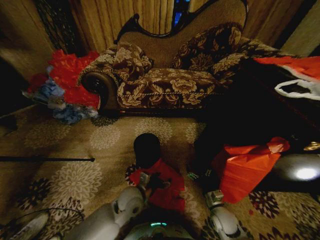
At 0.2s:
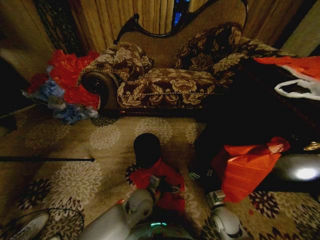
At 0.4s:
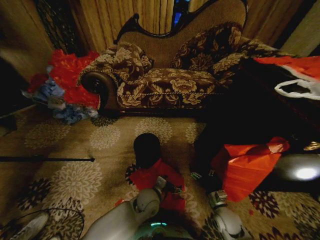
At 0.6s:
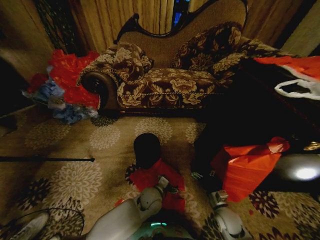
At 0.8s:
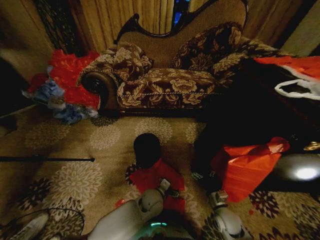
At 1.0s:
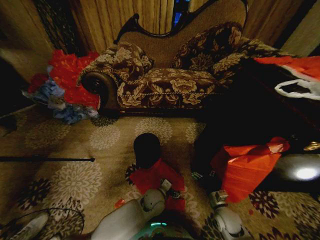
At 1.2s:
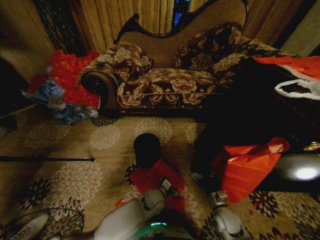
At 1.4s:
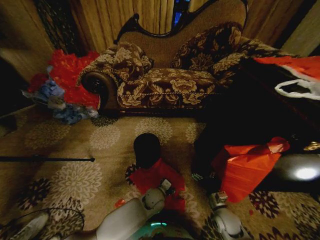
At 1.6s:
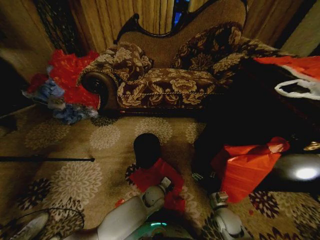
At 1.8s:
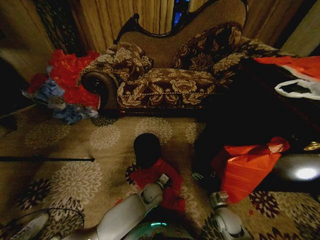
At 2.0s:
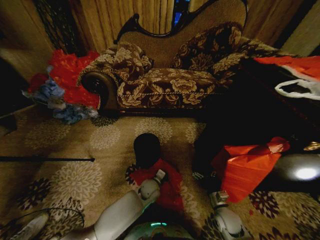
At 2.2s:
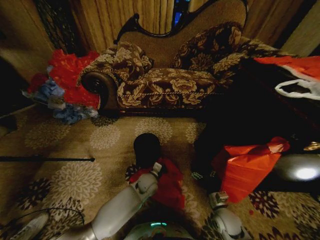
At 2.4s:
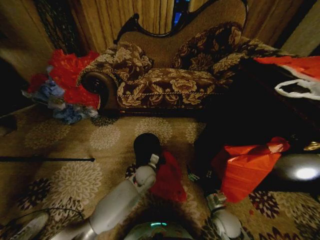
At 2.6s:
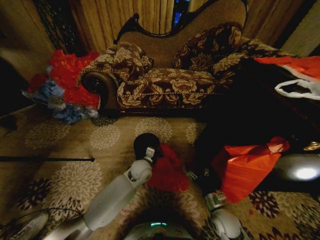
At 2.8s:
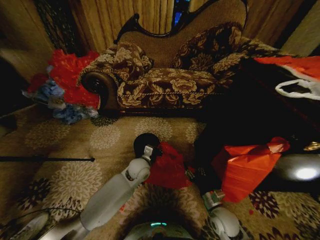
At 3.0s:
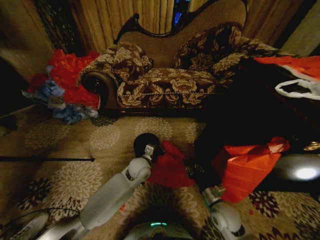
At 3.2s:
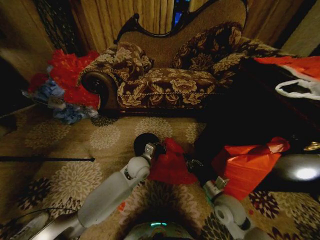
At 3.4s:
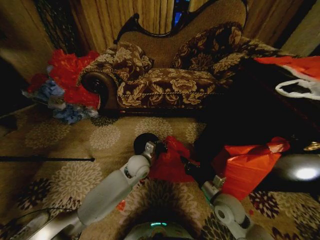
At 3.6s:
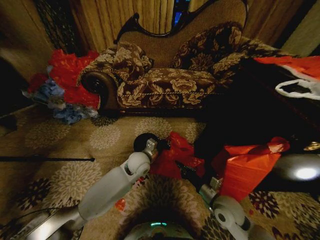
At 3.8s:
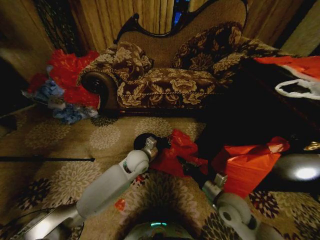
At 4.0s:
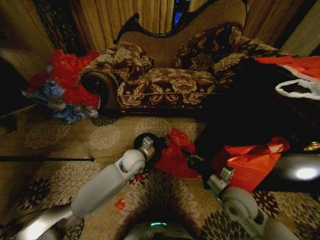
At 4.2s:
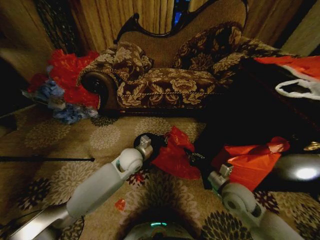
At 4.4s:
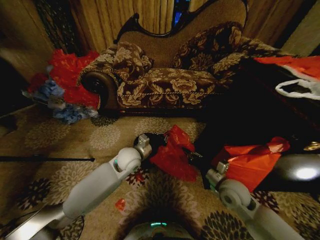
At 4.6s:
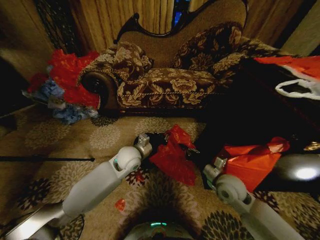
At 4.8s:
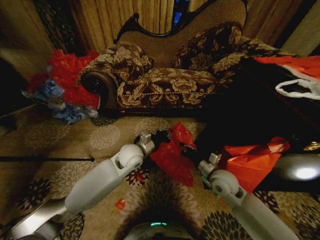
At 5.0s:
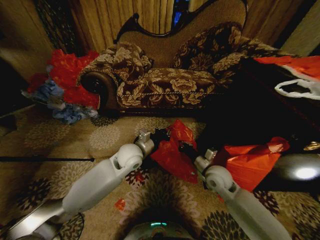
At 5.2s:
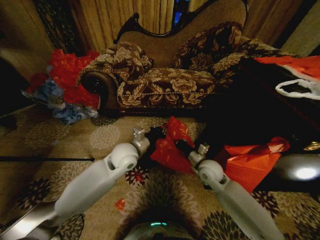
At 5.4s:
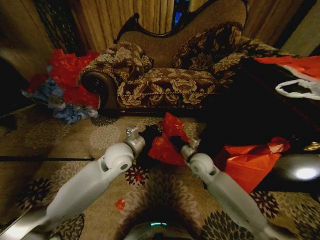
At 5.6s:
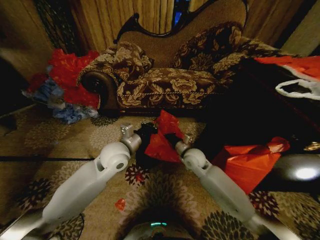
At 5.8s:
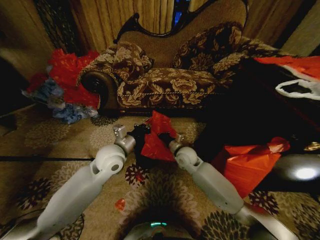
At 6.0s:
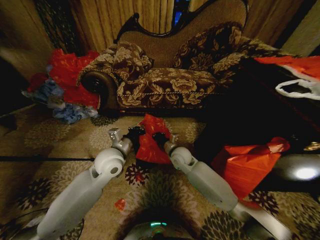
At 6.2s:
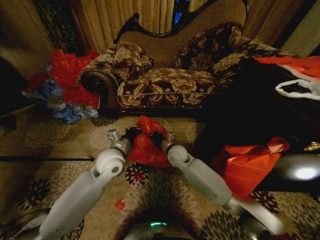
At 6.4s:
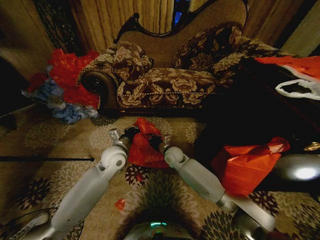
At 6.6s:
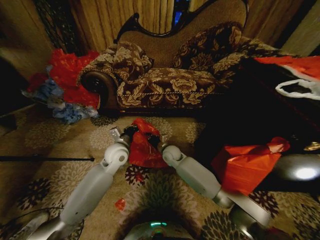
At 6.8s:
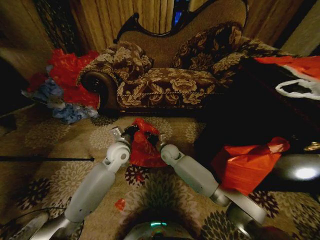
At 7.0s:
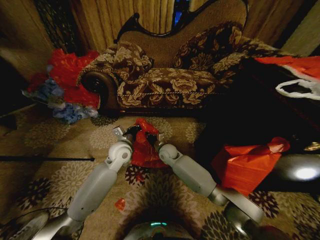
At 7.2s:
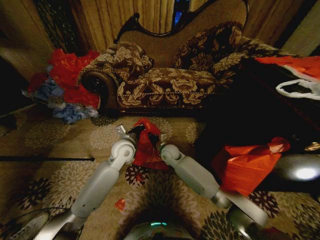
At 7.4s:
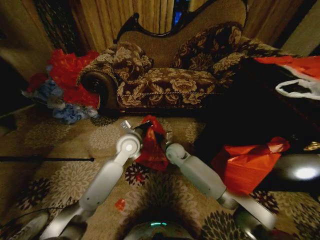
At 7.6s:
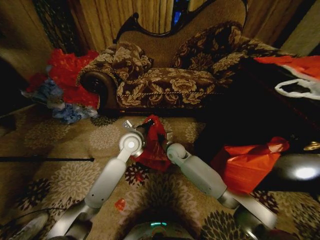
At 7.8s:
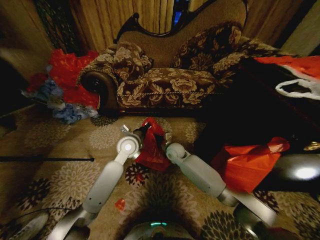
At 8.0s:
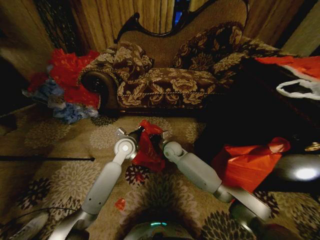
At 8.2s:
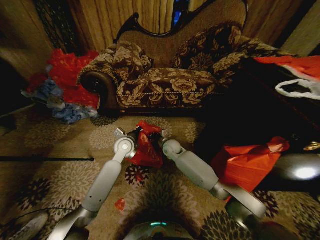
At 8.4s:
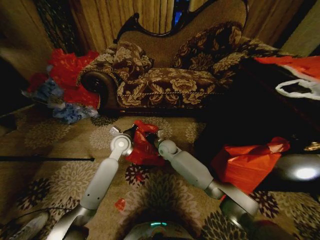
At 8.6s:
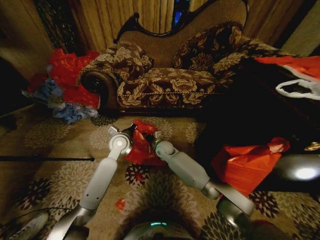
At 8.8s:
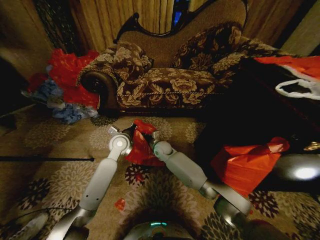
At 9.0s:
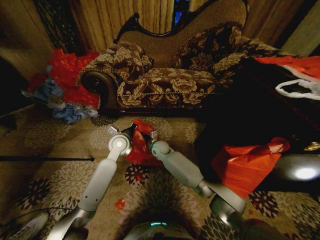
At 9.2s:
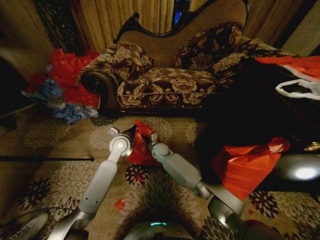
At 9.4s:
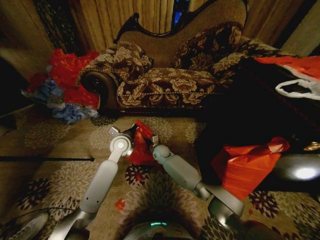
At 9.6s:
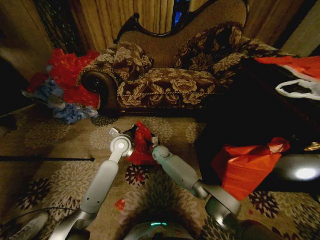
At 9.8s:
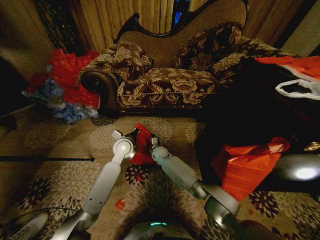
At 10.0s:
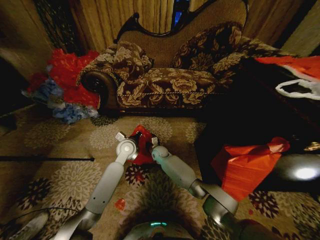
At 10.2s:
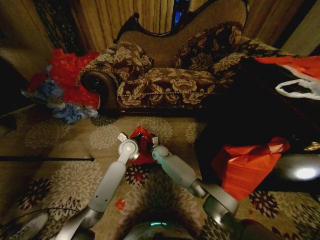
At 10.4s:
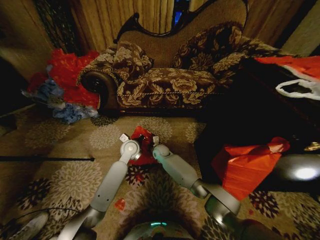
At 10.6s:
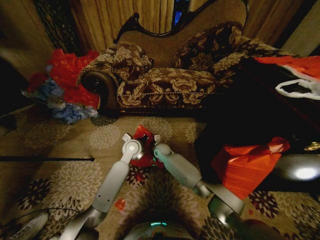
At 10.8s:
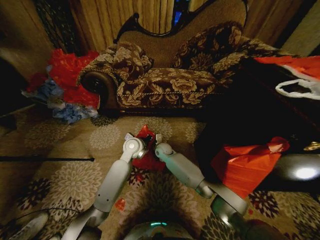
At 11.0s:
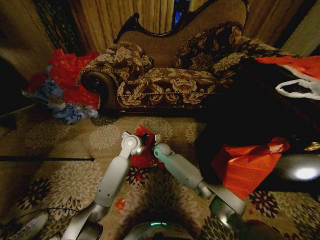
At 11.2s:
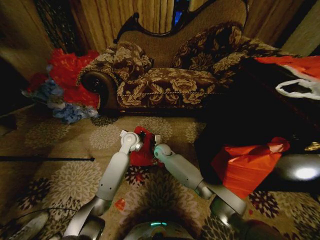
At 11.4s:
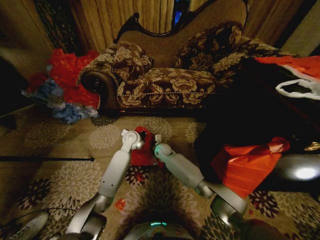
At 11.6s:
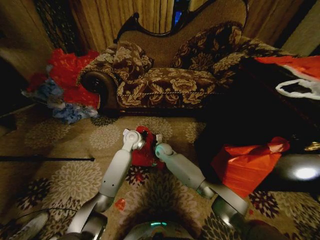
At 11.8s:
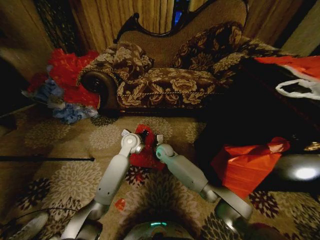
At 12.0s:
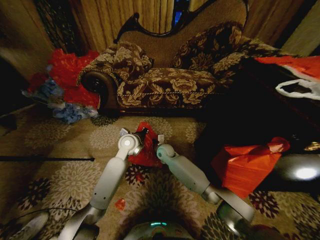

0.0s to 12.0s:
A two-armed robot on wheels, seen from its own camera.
Task of the whole recording: Place a garbage bag over the trash bin.
0.0s to 1.6s: The left gripper heads downward and to the right, covering some 15 cm.
1.6s to 3.0s: The left gripper goes approximately 20 cm upward, to the left and forward, and closes up; the right gripper travels upward by some 5 cm, and closes.
3.0s to 4.4s: The left gripper moves upward, approximately 5 cm; the right gripper shifts about 10 cm upward and forward, and closes its fingers.
4.4s to 6.0s: The left gripper shifts by approximately 10 cm. The right gripper is displaced to the left and forward by about 25 cm.
6.0s to 7.6s: The left gripper heads forward and to the right, covering about 10 cm. Meanwhile the right gripper shifts by approximately 5 cm.
7.6s to 9.0s: The grippers both shift to the left by approximately 5 cm.
9.0s to 10.4s: The right gripper travels downward by roughly 5 cm. Meanwhile the left gripper shifts by roughly 5 cm.
10.4s to 12.0s: The right gripper shifts by approximately 5 cm, and opens its fingers. Meanwhile the left gripper is displaced upward by about 5 cm.

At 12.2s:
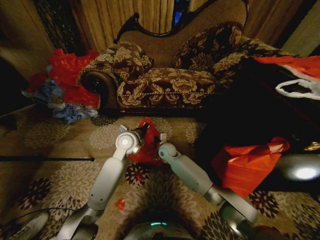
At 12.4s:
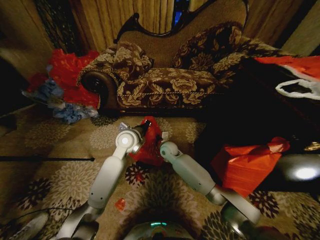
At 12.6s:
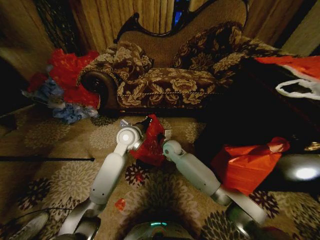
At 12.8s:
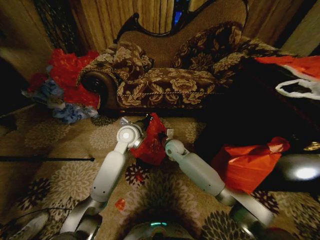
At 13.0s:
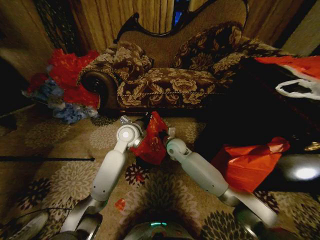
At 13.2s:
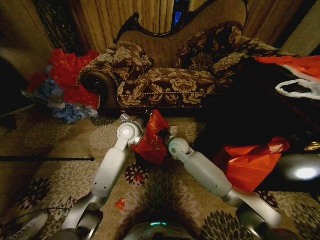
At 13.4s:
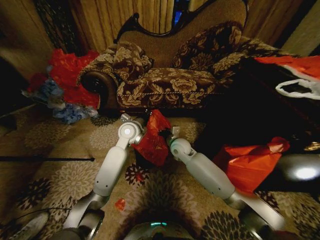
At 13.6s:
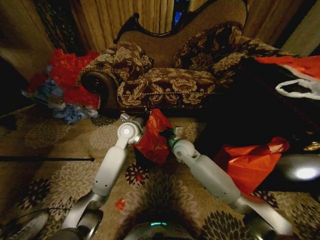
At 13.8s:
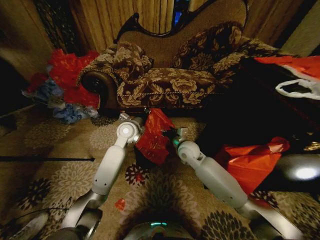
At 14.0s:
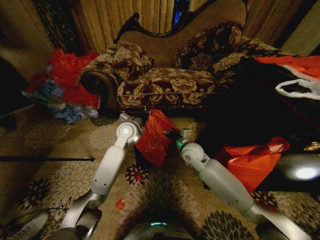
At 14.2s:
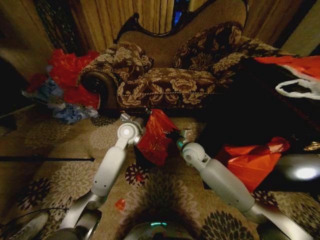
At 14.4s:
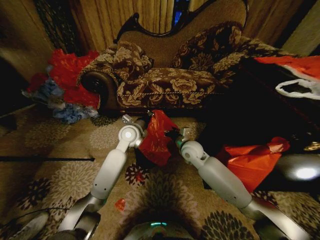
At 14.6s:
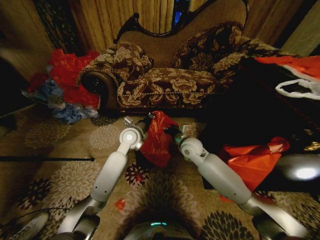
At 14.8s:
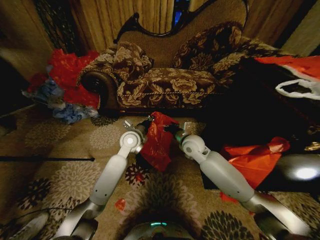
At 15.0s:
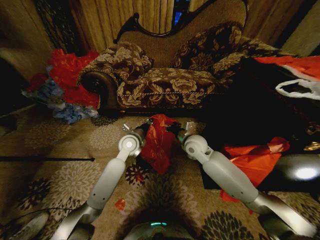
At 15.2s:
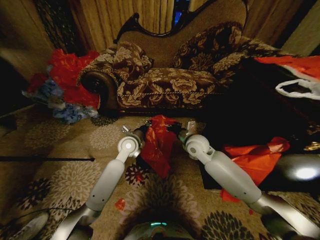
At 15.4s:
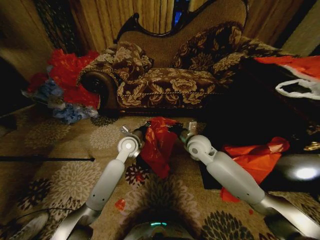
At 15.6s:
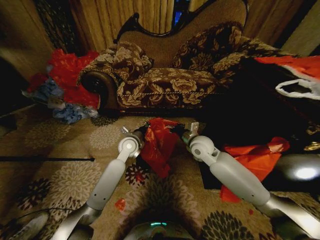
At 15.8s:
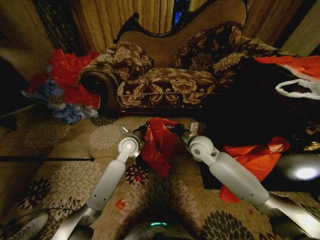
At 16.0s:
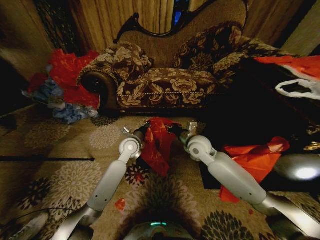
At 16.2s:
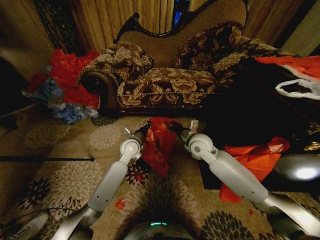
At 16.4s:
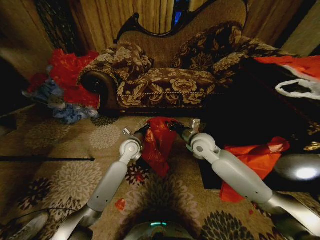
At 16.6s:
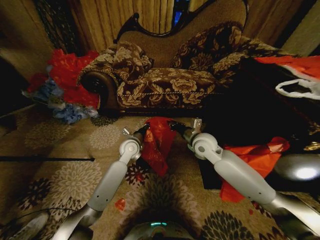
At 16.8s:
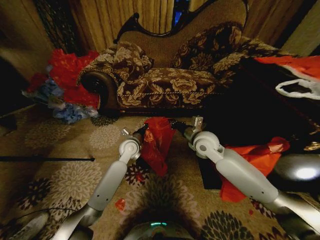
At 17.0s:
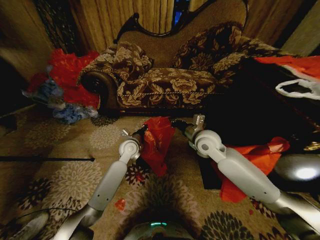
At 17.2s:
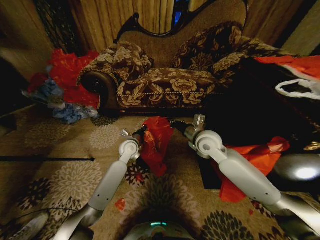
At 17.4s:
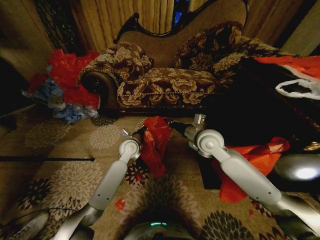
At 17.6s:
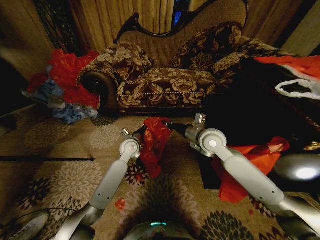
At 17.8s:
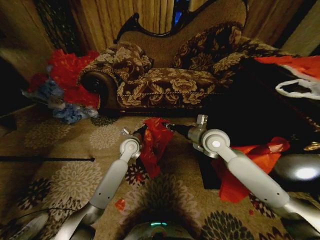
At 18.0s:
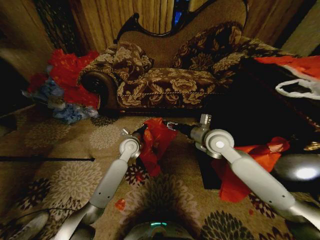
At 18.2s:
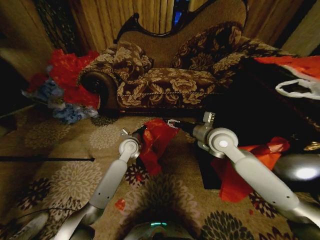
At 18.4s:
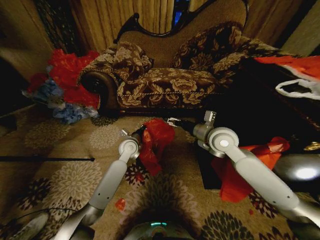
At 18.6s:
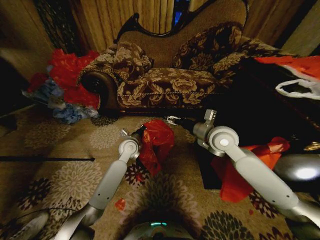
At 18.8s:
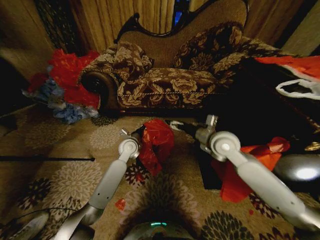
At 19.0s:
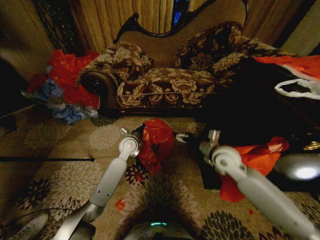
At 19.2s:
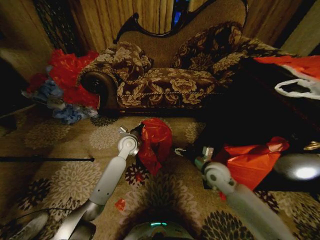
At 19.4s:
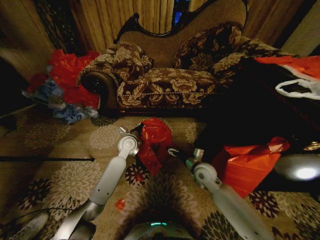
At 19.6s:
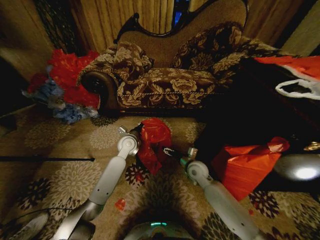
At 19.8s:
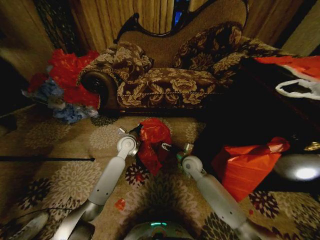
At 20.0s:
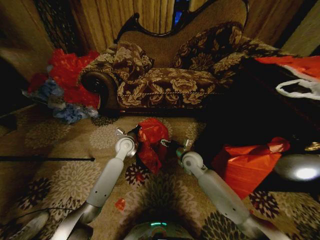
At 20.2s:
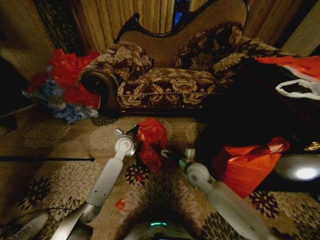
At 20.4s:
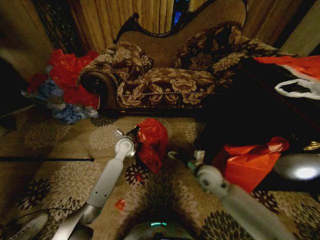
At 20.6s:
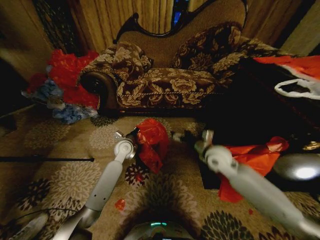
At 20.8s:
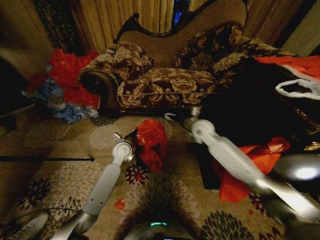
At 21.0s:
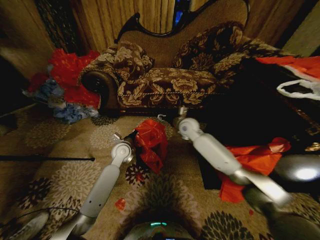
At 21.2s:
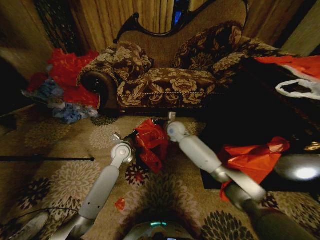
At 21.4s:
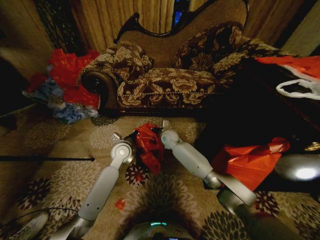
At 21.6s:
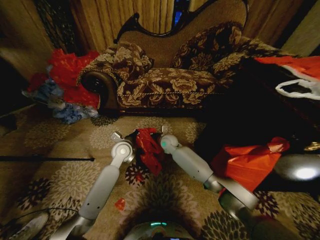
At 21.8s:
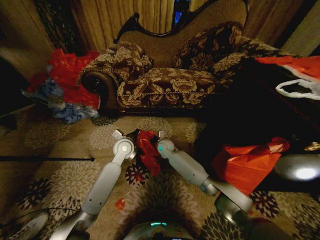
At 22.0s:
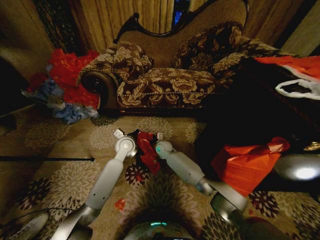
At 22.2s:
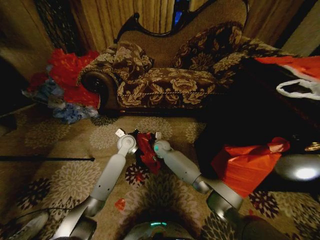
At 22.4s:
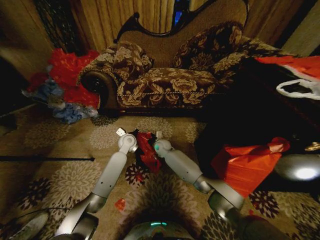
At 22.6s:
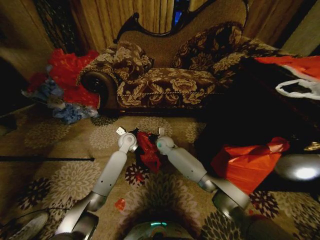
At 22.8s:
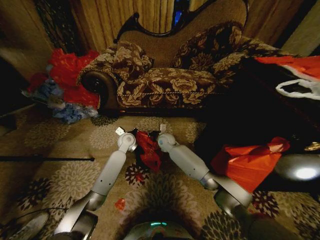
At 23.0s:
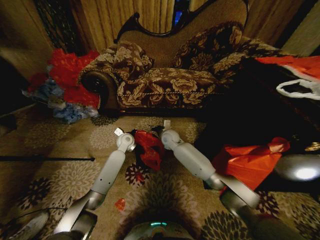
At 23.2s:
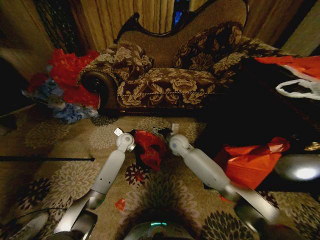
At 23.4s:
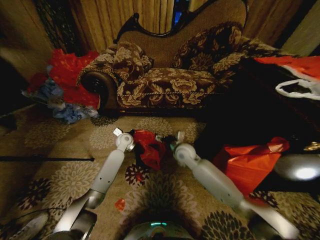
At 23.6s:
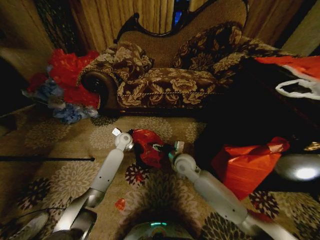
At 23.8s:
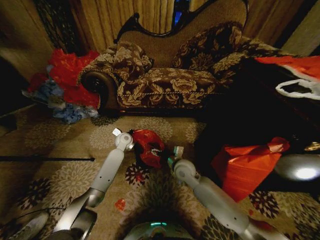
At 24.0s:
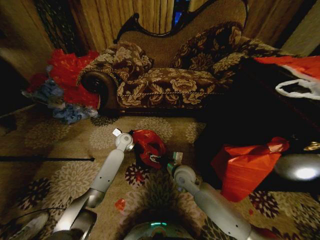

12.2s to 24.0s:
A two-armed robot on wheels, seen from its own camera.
Task of the whole recording: Place a garbage bag over the trash bin.
12.2s to 13.6s: The right gripper moves upward and to the right, about 10 cm, and opens up.
13.6s to 15.2s: The right gripper moves about 5 cm. The left gripper moves downward, approximately 5 cm.
15.2s to 16.6s: The right gripper closes.
16.6s to 18.2s: The right gripper heads upward, covering approximately 5 cm, and opens up.
18.2s to 19.6s: The right gripper shifts about 20 cm downward.
19.6s to 21.0s: The right gripper heads forward and upward, covering about 20 cm.
21.0s to 22.6s: The right gripper heads downward and to the left, covering roughly 15 cm, and closes. The left gripper is displaced forward by about 5 cm.
22.6s to 24.0s: The right gripper travels backward and to the right by some 20 cm, and opens up.
